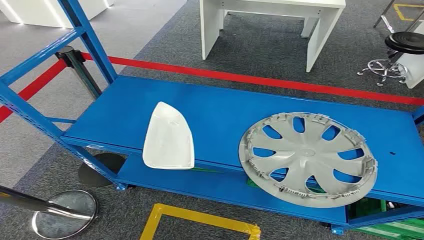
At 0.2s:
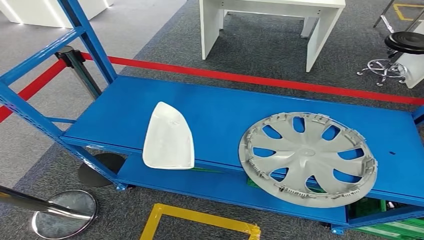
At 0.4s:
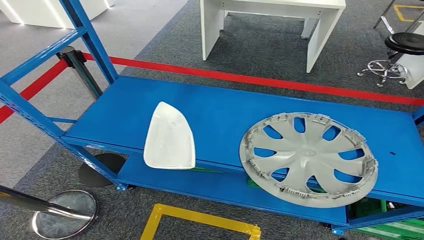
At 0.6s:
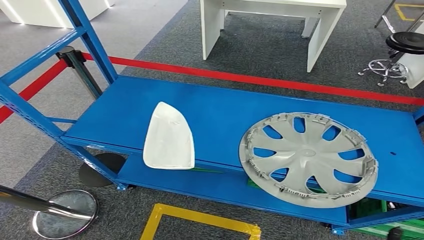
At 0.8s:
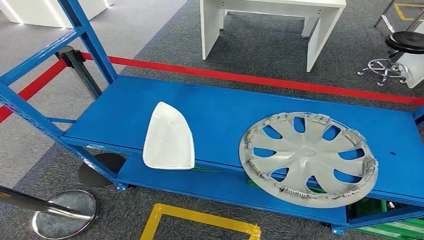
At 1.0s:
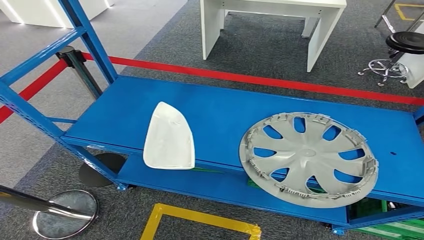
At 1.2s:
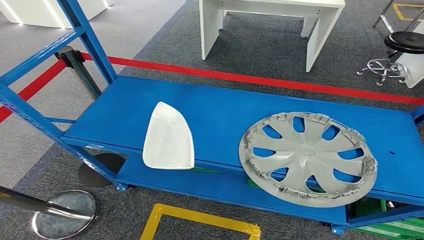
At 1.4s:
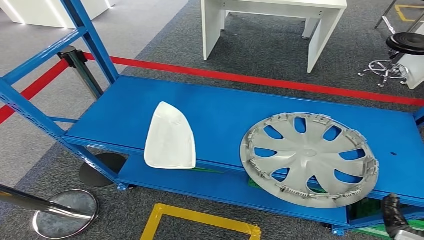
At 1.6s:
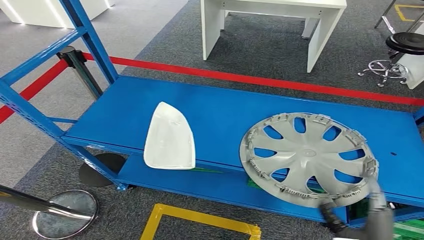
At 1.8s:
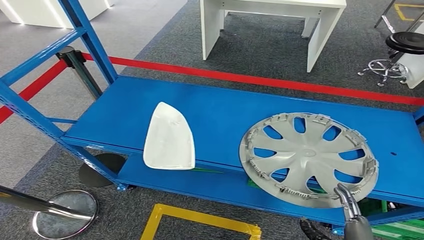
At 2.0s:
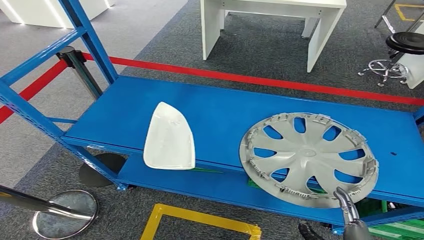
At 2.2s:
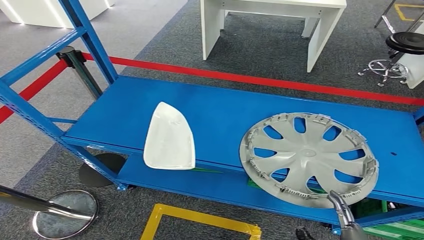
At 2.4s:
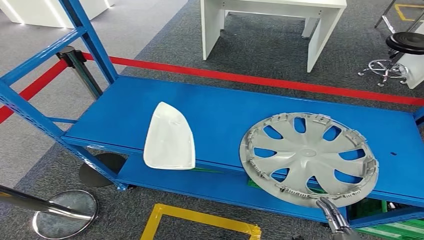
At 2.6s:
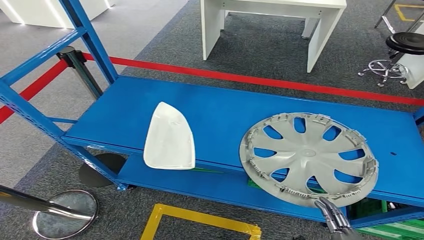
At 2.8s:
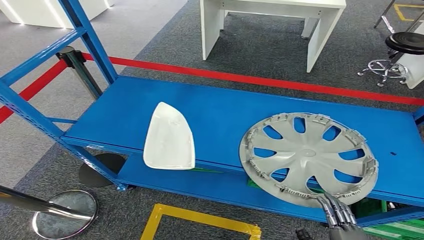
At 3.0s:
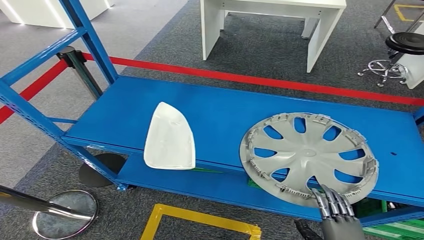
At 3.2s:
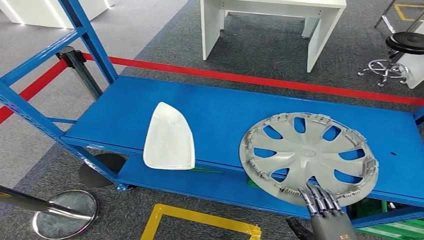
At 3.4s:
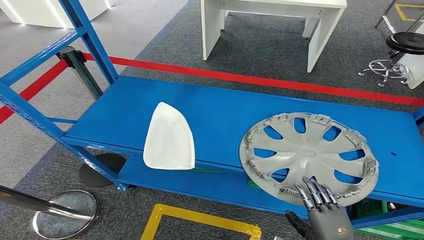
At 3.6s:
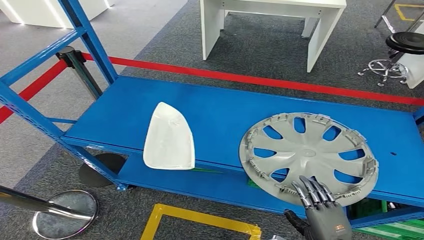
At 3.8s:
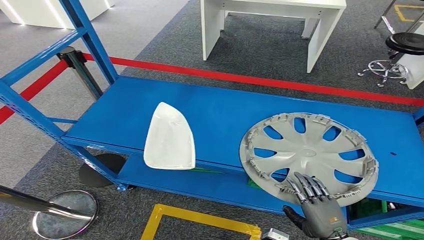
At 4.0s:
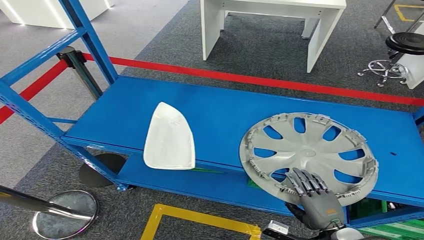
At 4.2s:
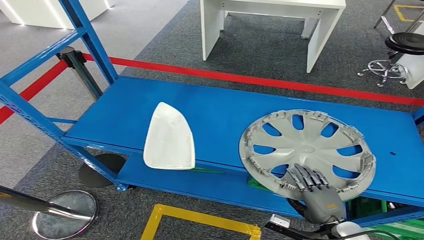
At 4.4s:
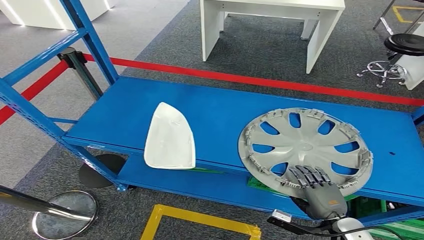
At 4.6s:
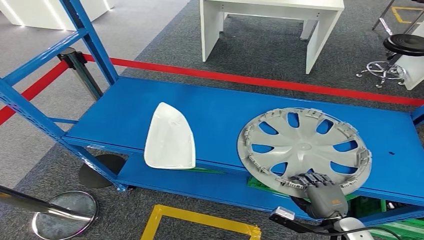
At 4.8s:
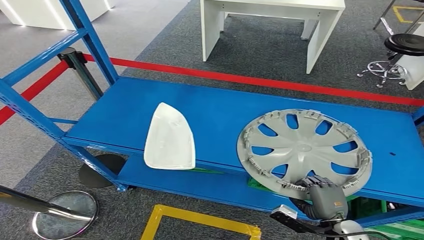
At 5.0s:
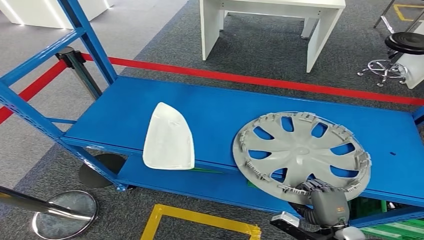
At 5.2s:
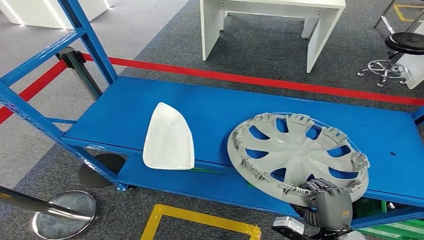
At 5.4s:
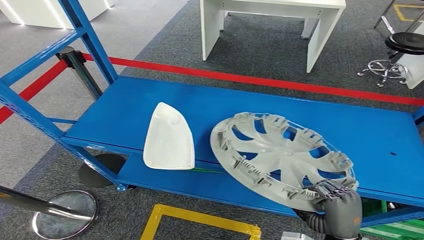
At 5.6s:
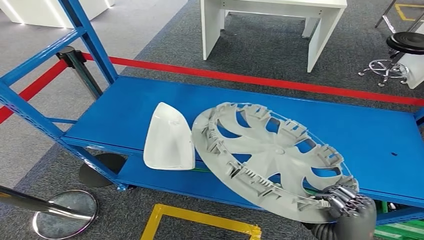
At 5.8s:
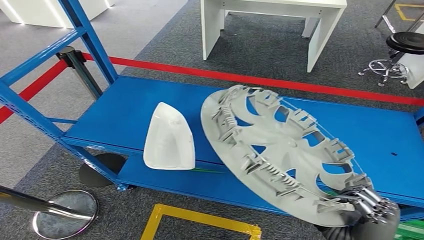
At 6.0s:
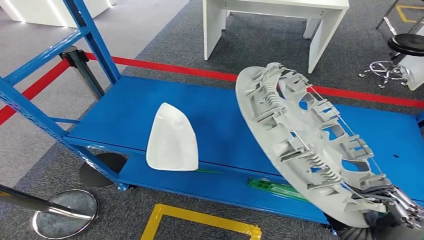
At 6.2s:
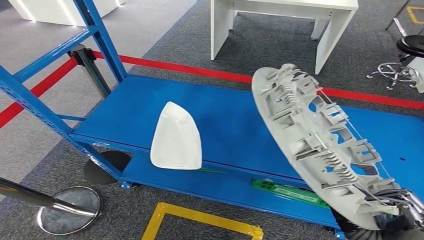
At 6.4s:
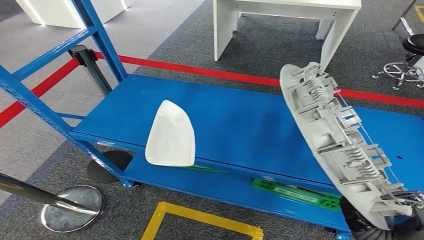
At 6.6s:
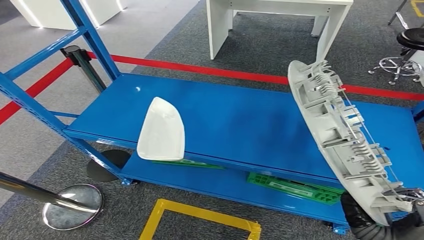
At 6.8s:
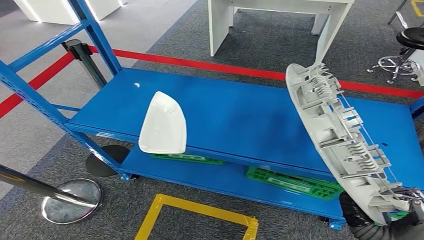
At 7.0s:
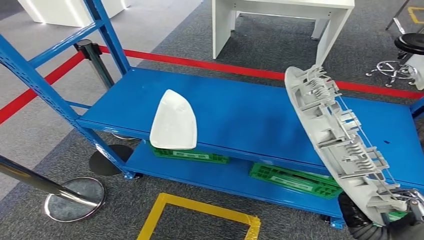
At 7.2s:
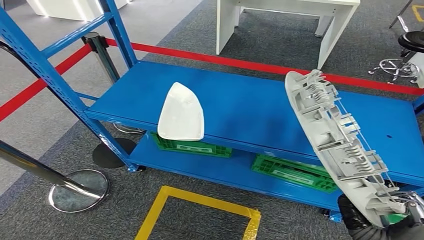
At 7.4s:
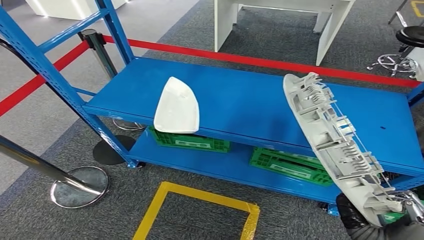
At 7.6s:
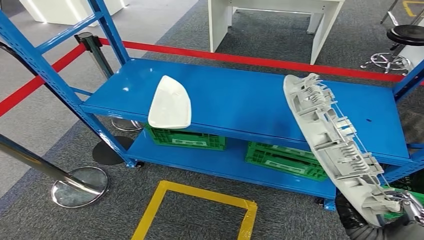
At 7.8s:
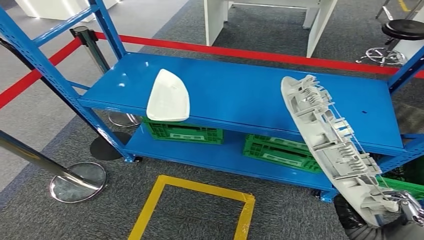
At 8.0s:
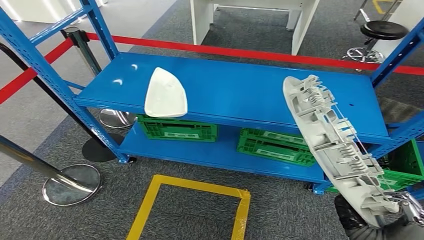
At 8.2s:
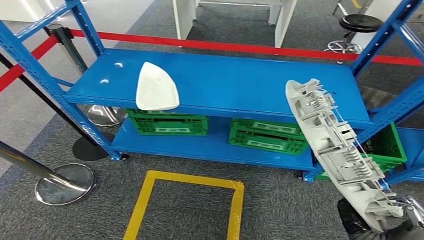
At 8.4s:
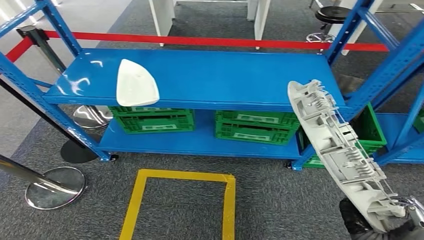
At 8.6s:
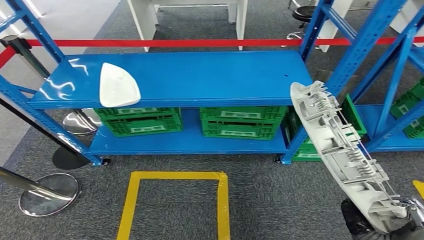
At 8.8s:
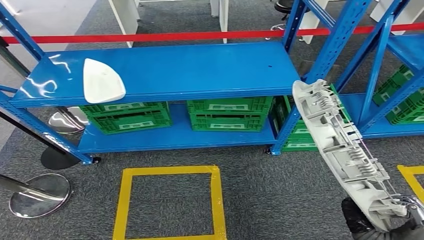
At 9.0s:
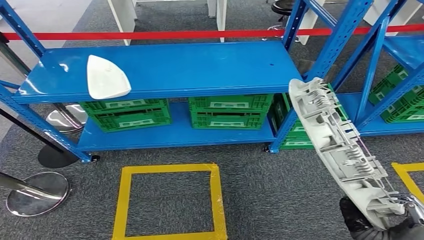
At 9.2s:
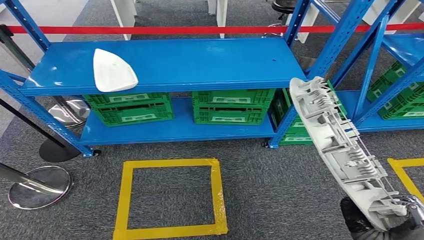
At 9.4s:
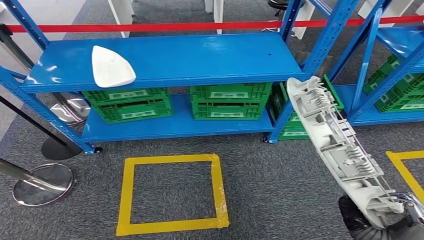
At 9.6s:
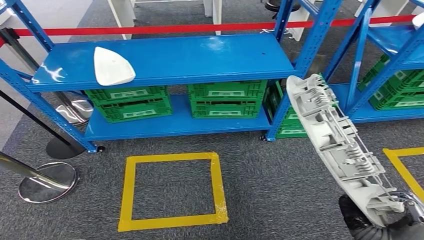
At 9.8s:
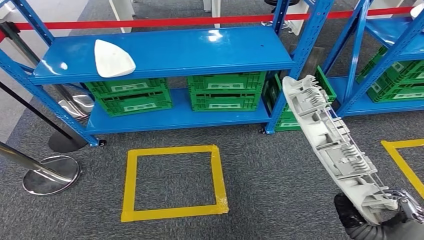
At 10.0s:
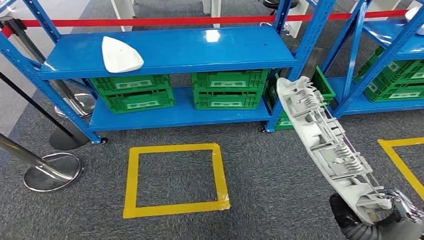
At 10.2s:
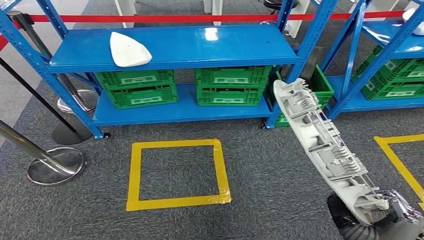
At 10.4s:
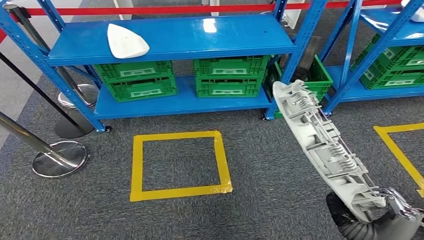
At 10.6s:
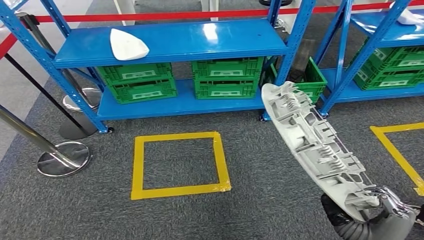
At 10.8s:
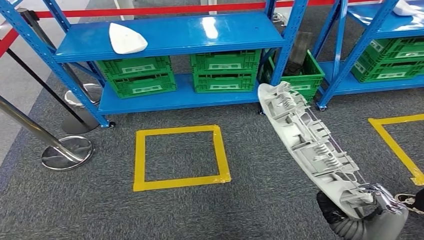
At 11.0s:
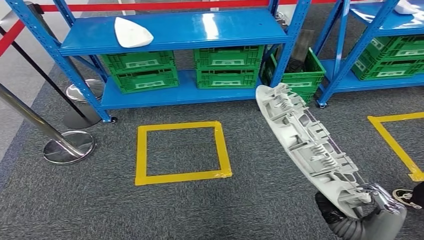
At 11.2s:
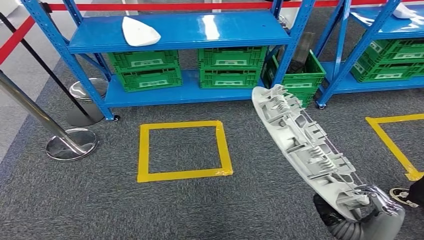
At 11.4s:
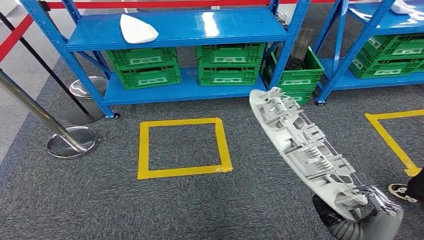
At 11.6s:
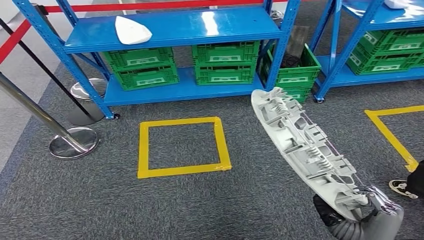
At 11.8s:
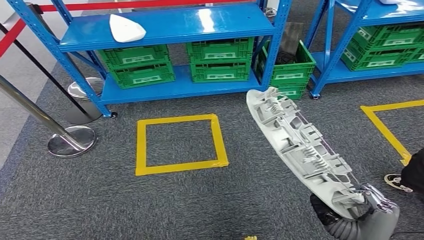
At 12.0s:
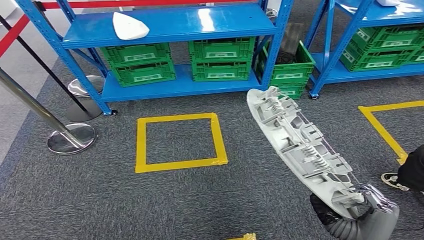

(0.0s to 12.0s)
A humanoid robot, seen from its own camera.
Step, 0.0s - 6.2s: Take small components from the rack.
3.0s - 4.4s: The right hand heads forward, covering roughly 10 cm.

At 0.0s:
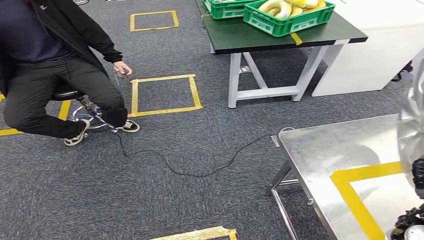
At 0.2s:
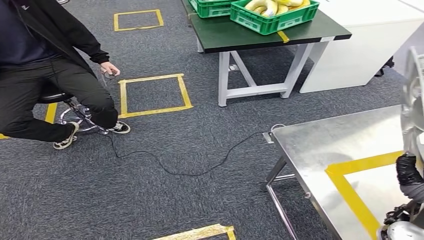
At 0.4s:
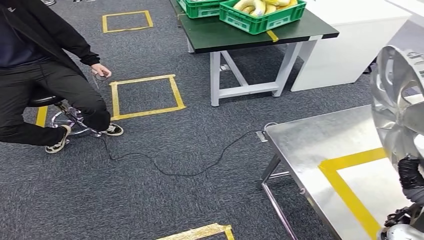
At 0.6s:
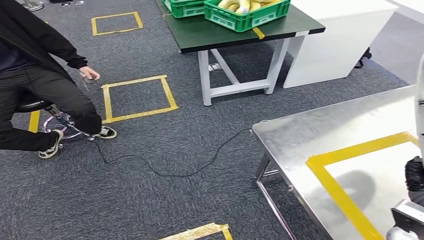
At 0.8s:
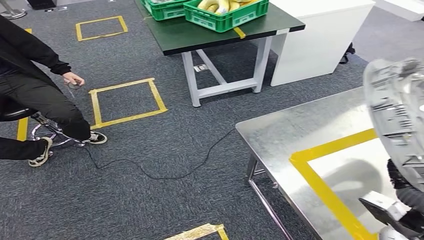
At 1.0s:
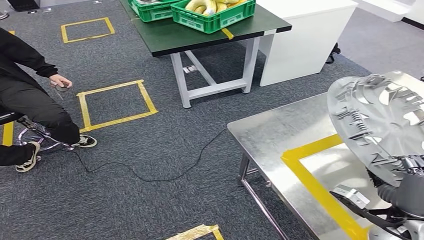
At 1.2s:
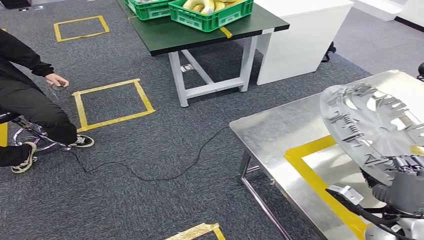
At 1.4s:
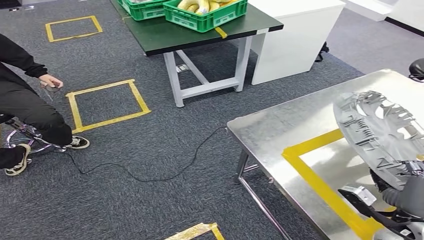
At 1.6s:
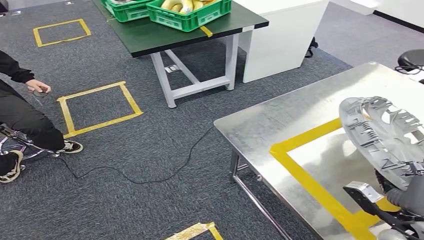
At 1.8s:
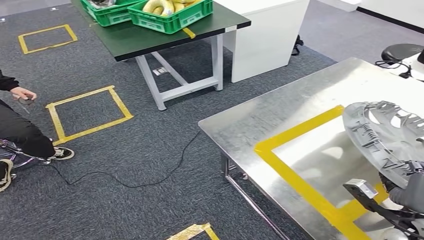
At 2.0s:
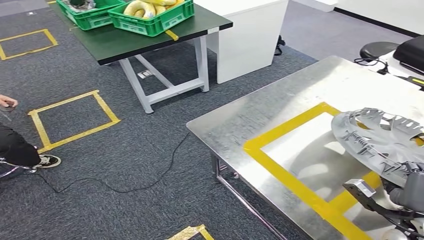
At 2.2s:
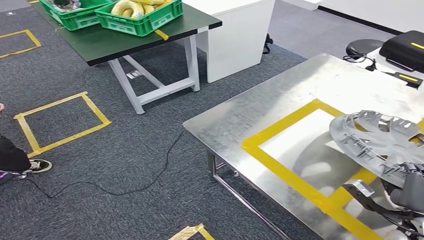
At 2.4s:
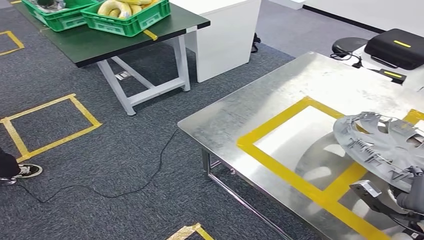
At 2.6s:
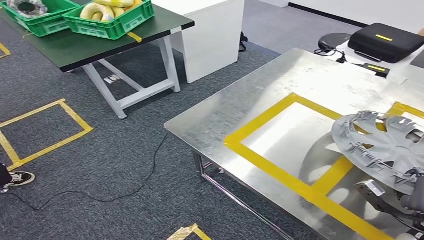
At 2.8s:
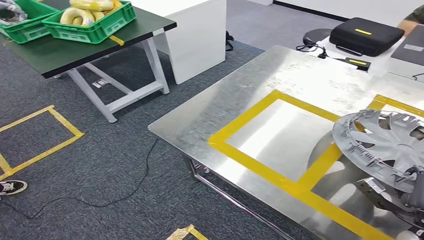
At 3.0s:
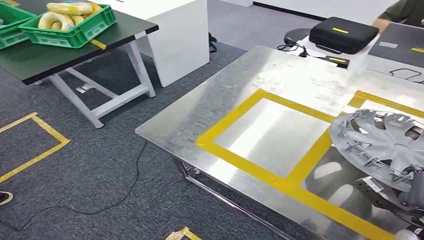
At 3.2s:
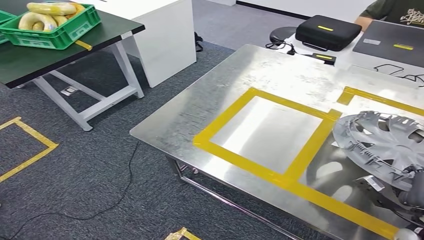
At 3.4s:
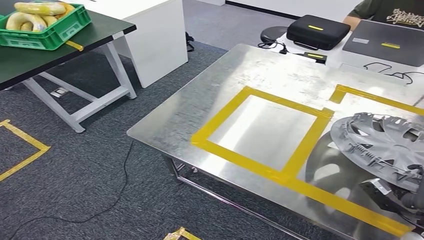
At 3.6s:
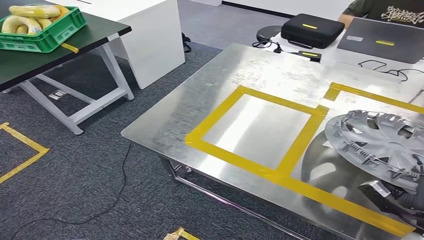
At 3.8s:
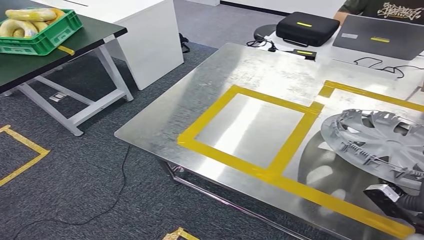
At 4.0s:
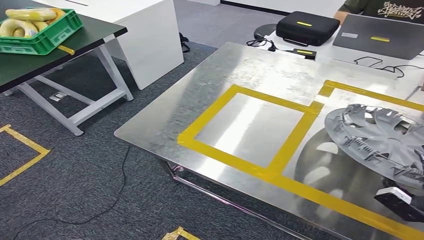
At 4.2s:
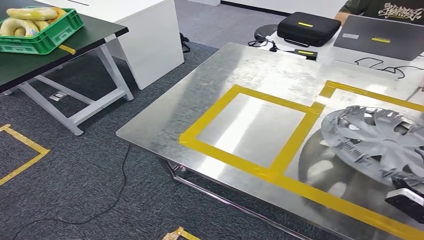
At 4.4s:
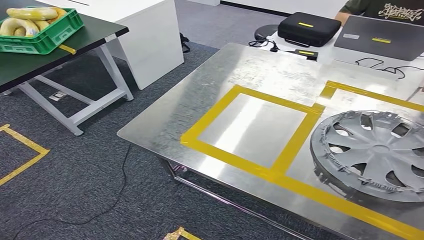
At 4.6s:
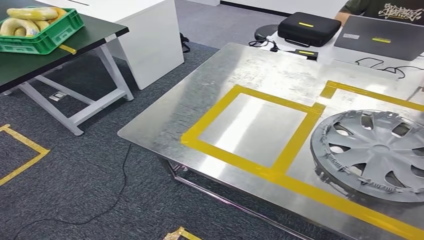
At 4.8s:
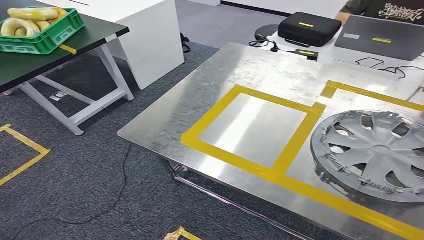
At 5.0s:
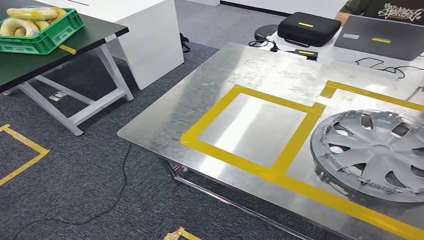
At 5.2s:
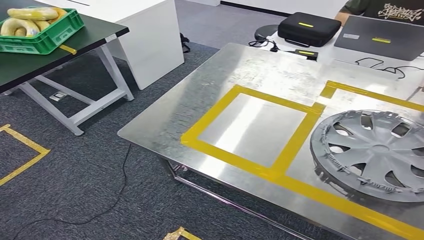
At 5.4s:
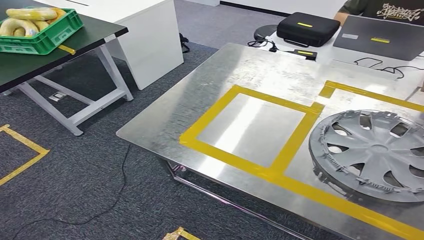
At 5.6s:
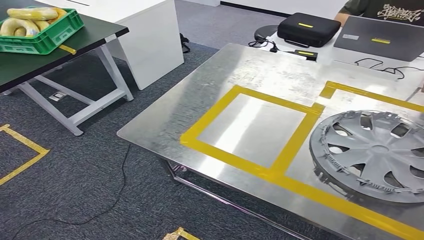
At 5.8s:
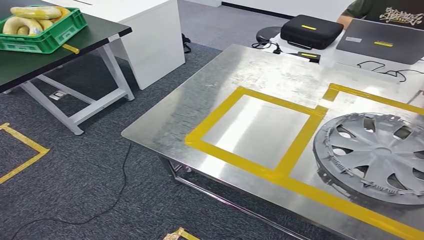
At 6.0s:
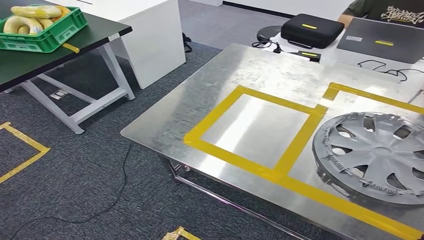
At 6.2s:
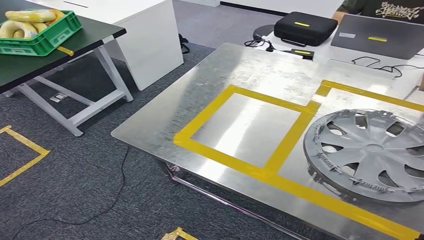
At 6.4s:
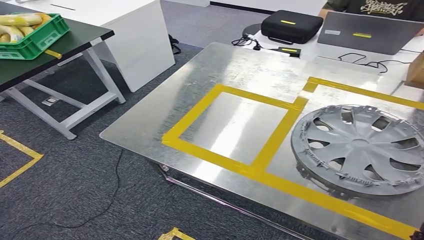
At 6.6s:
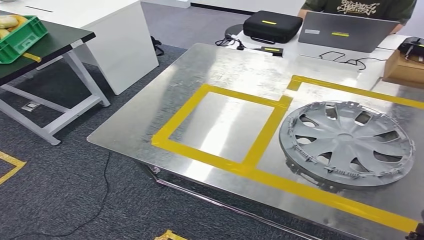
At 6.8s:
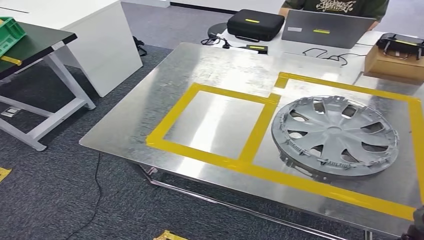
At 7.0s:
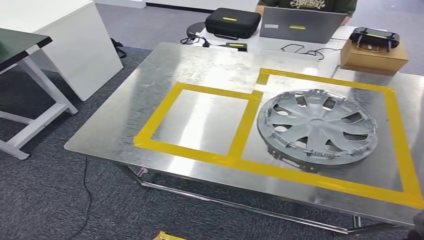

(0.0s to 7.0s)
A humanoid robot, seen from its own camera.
Step, 0.8s - 5.8s: Insert the small parts into the corresponding holes on the workbench.
4.2s - 5.6s: The right hand goes upward and returns, about 15 cm each way.
